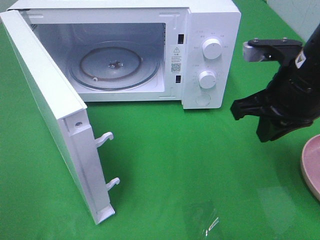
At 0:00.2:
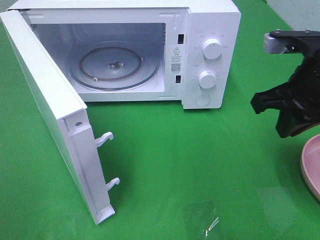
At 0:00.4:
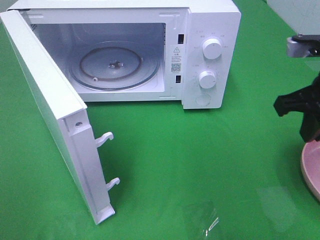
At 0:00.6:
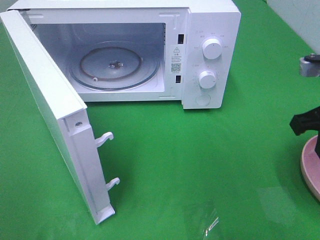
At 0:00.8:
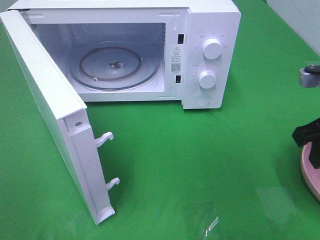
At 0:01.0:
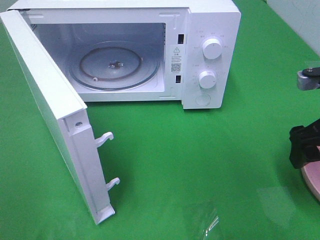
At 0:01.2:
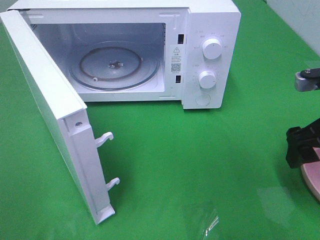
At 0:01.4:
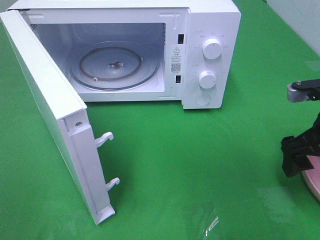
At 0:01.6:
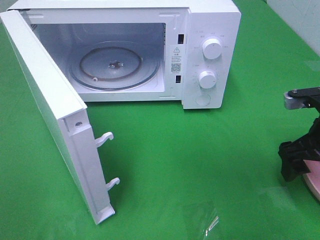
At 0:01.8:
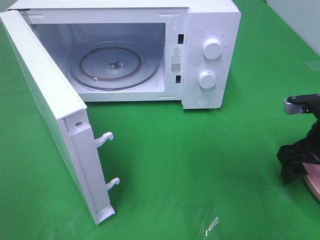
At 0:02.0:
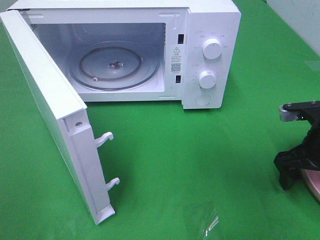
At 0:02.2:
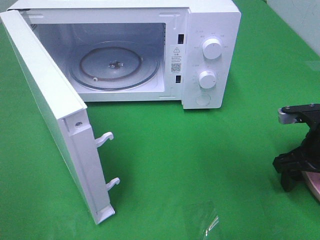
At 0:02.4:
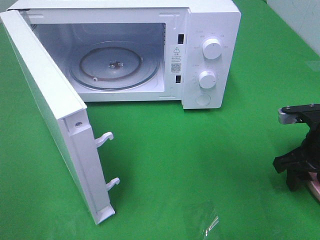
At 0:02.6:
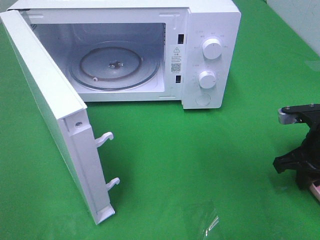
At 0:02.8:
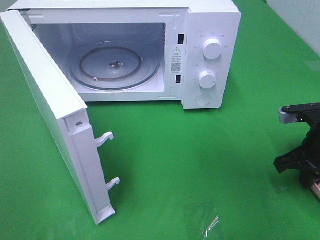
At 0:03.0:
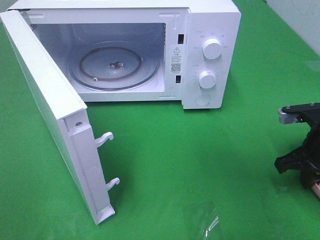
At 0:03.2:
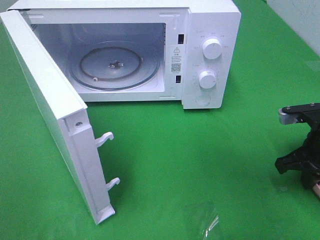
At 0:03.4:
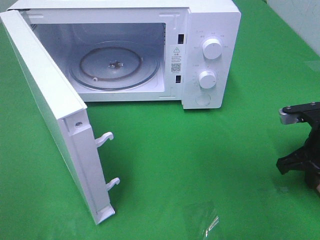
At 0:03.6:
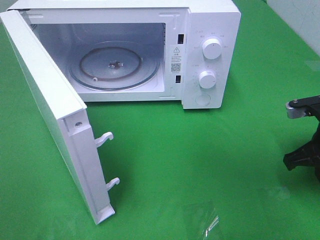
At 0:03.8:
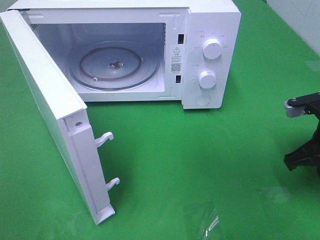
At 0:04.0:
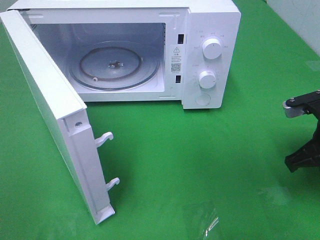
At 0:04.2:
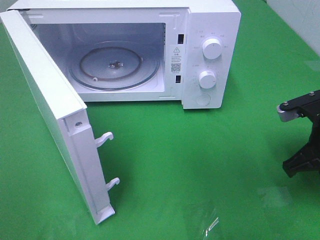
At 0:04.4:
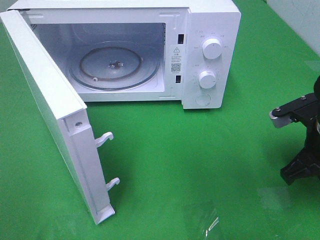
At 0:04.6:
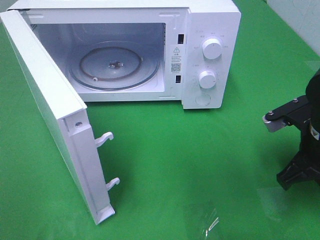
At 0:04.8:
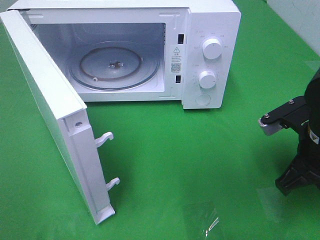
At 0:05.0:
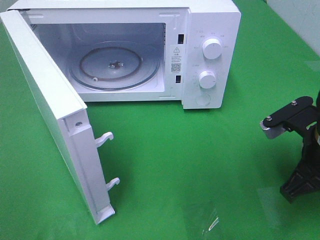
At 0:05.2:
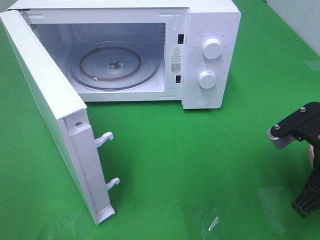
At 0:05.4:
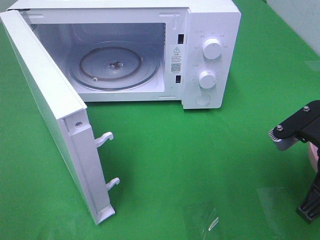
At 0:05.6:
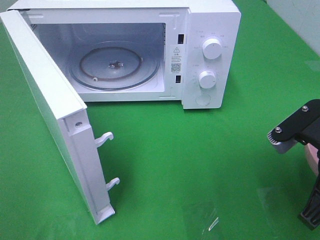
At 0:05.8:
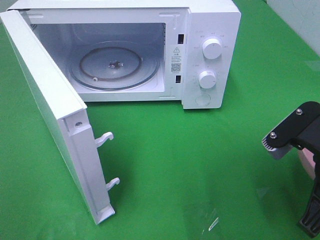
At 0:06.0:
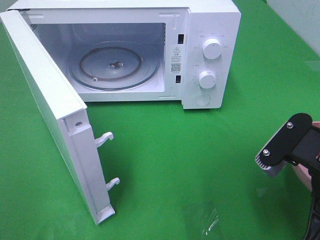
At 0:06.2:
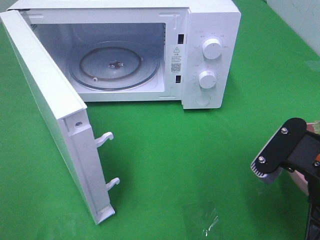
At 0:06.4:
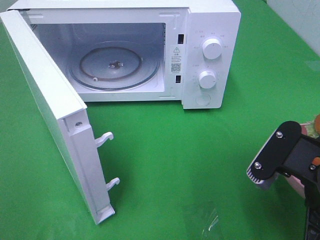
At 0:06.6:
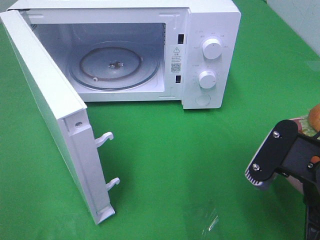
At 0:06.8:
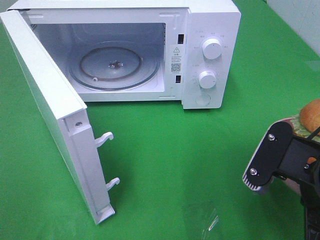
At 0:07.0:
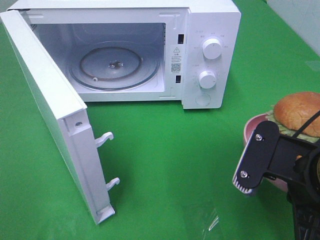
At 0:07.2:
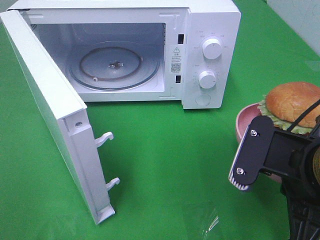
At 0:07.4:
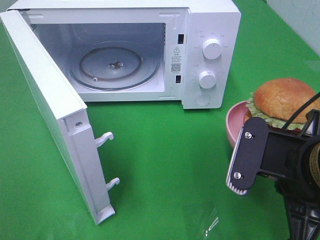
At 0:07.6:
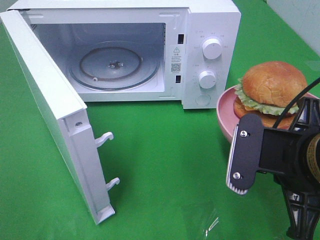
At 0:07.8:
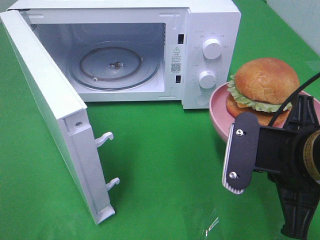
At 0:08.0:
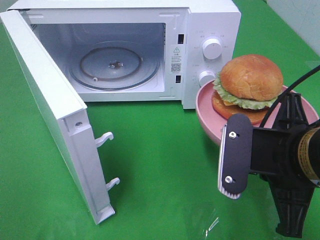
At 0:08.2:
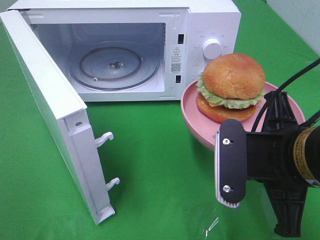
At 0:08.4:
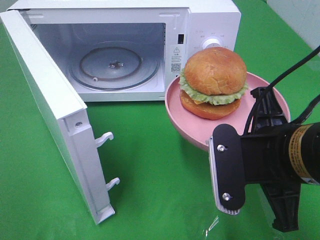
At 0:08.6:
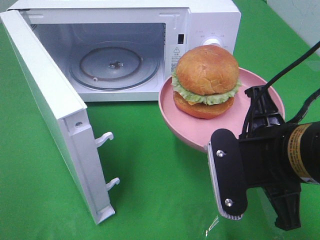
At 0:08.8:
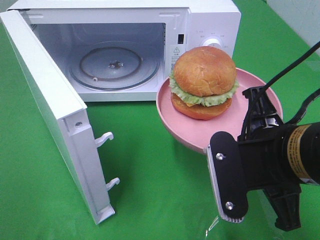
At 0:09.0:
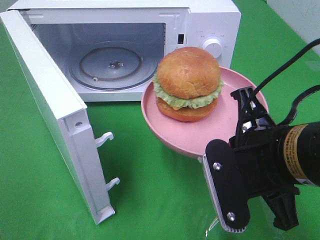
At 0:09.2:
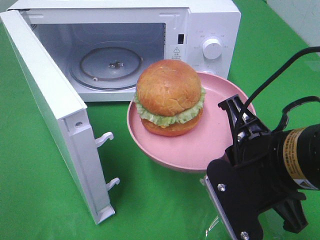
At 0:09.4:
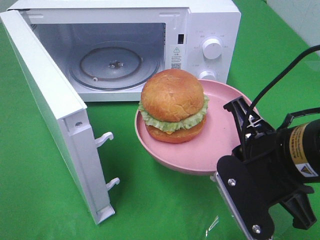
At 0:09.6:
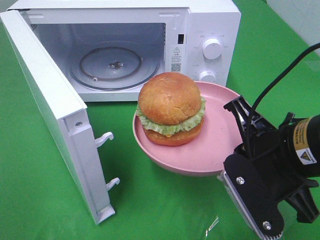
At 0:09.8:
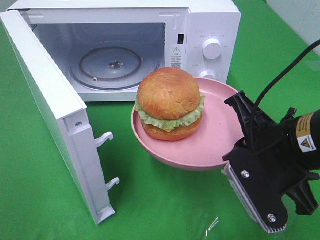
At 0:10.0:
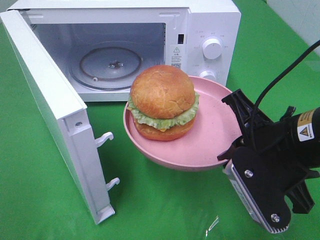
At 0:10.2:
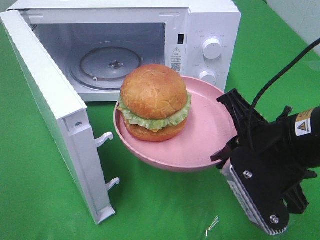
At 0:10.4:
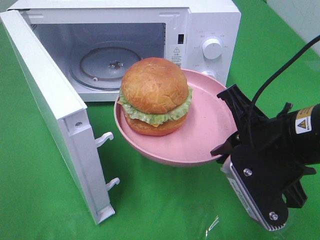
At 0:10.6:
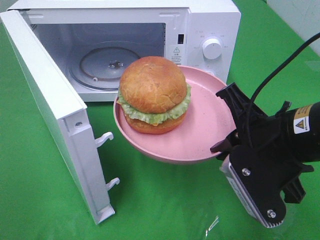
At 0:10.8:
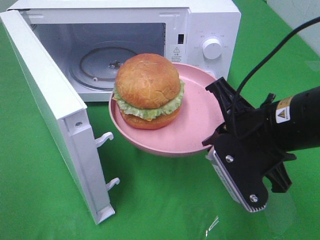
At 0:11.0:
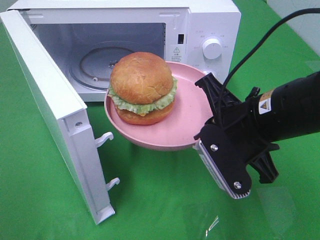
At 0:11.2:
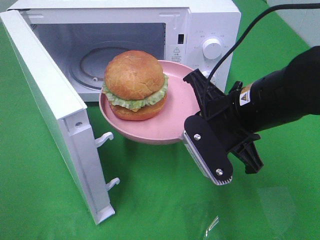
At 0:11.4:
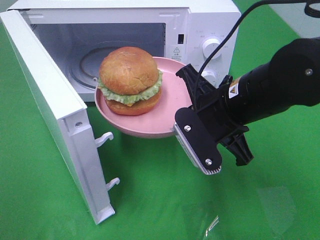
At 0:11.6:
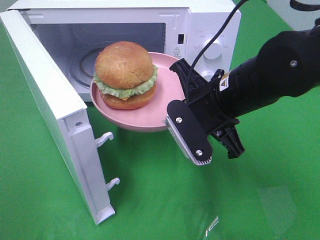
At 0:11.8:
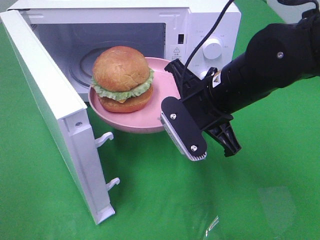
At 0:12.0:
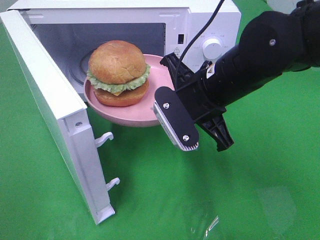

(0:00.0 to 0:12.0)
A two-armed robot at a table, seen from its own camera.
Task of the whole recording: Heat the burger.
Step, 0:00.0 - 0:02.8: Right hand: grab the plate with the hamburger.
0:00.0 - 0:01.6: The right gripper shifts approximately 10 cm to the right and downward, and opens its fingers.
0:01.6 - 0:03.0: The right gripper closes up.
0:03.0 - 0:04.4: The right gripper changes place by some 5 cm.
0:04.4 - 0:06.0: The right gripper goes roughly 10 cm backward and to the left.
0:09.0 - 0:10.4: The grippers move only a little.
0:10.4 - 0:12.0: The right gripper shifts roughly 10 cm forward and to the left.

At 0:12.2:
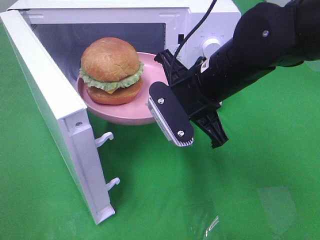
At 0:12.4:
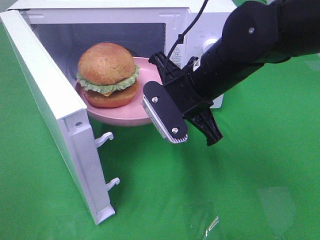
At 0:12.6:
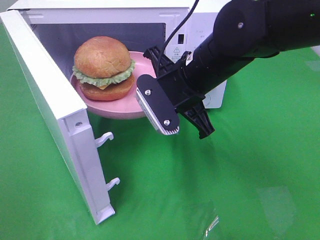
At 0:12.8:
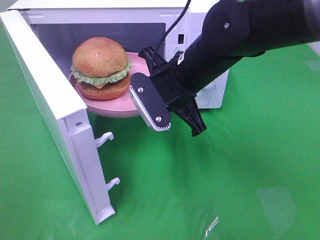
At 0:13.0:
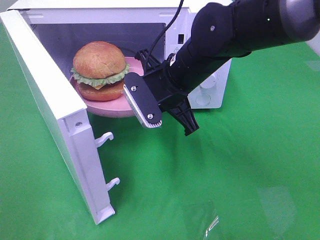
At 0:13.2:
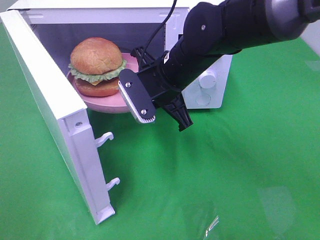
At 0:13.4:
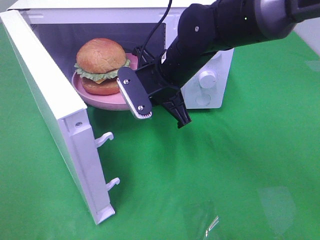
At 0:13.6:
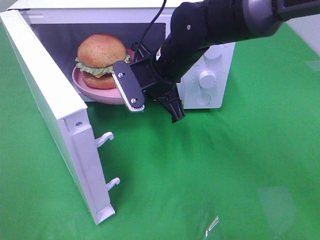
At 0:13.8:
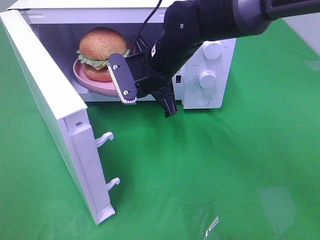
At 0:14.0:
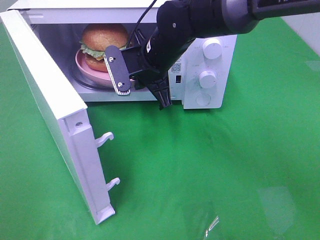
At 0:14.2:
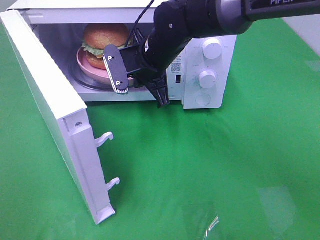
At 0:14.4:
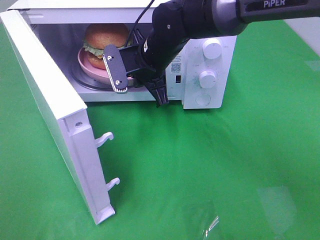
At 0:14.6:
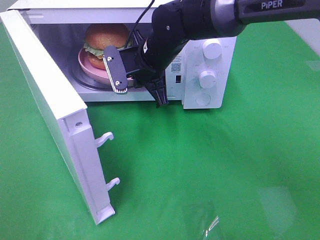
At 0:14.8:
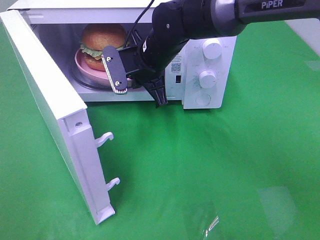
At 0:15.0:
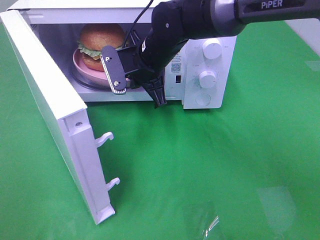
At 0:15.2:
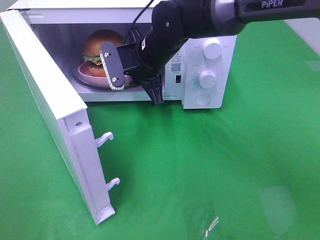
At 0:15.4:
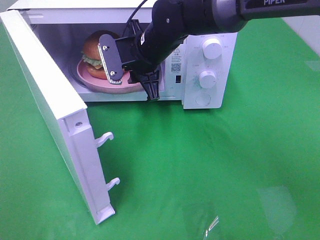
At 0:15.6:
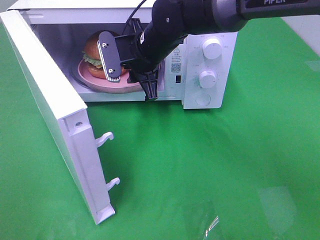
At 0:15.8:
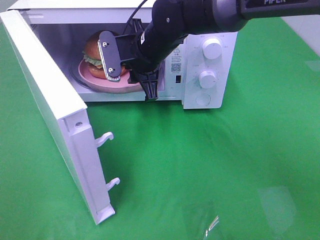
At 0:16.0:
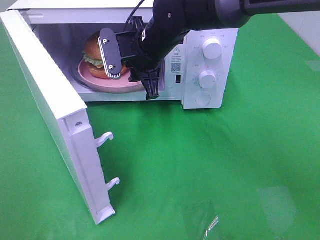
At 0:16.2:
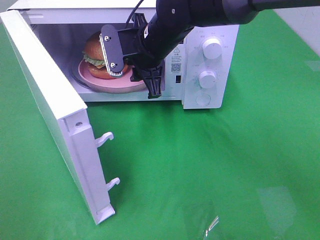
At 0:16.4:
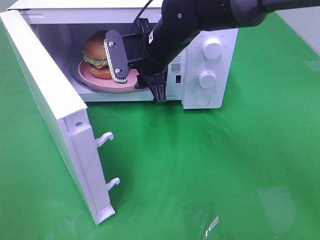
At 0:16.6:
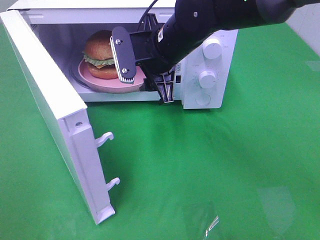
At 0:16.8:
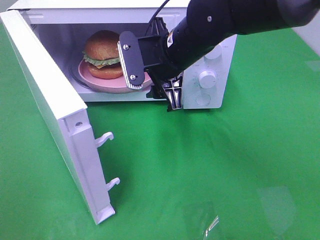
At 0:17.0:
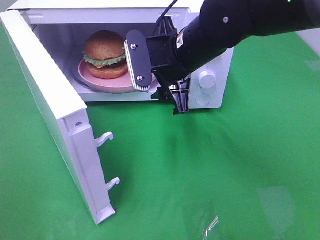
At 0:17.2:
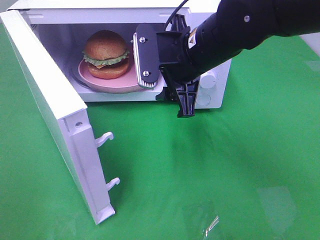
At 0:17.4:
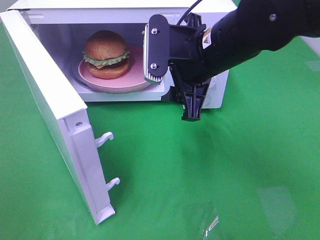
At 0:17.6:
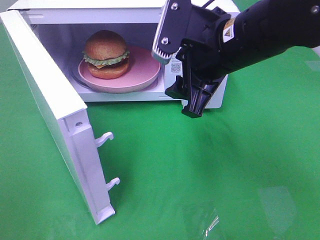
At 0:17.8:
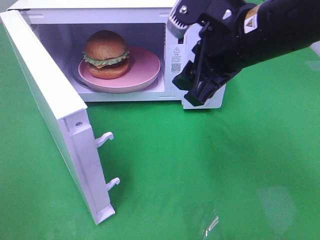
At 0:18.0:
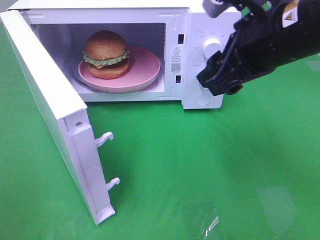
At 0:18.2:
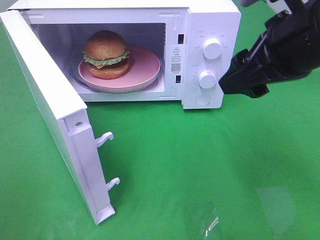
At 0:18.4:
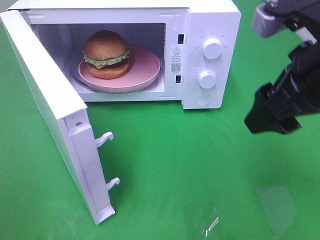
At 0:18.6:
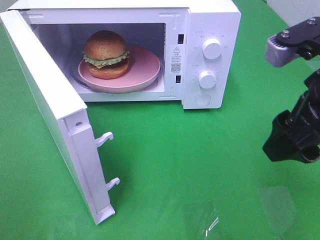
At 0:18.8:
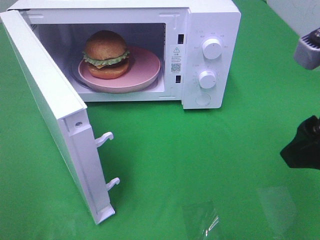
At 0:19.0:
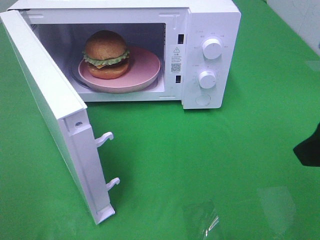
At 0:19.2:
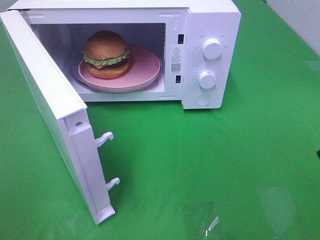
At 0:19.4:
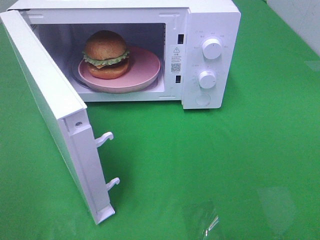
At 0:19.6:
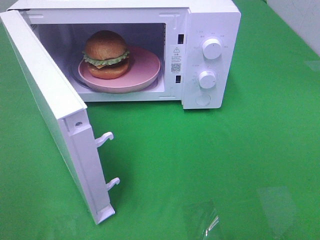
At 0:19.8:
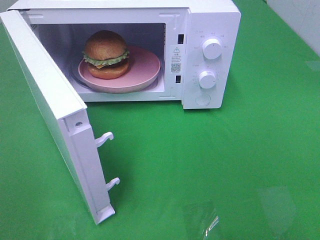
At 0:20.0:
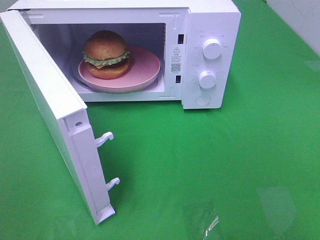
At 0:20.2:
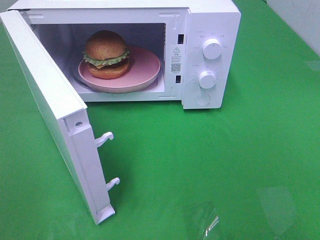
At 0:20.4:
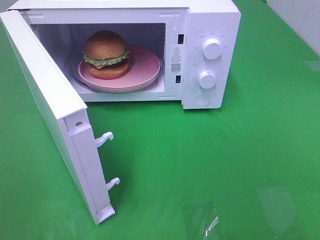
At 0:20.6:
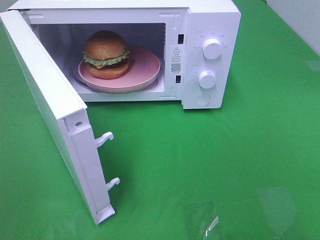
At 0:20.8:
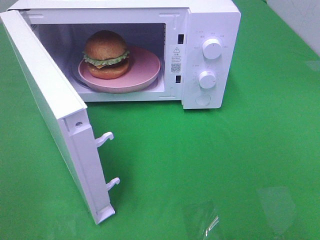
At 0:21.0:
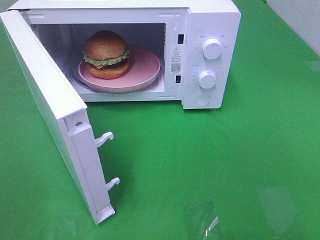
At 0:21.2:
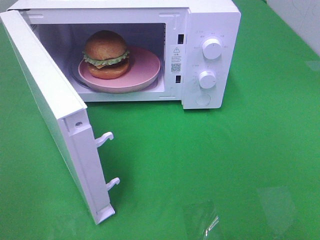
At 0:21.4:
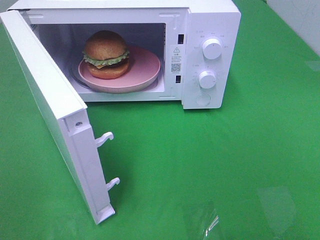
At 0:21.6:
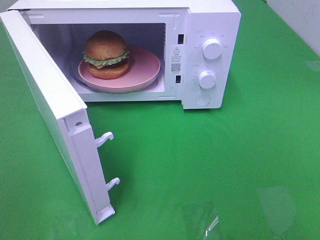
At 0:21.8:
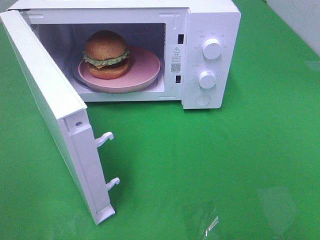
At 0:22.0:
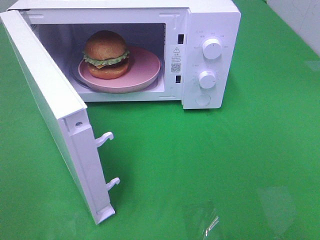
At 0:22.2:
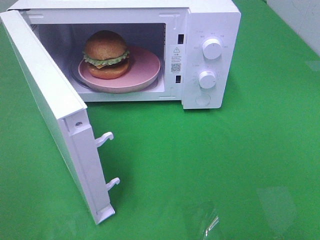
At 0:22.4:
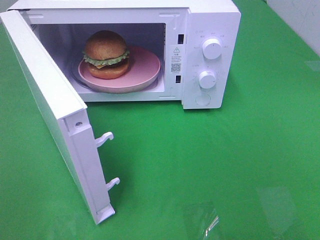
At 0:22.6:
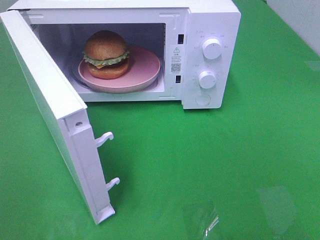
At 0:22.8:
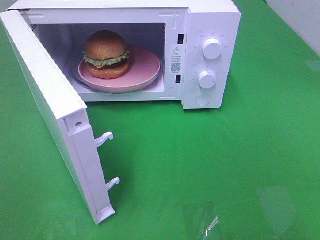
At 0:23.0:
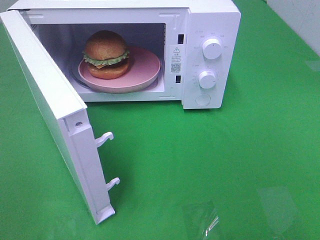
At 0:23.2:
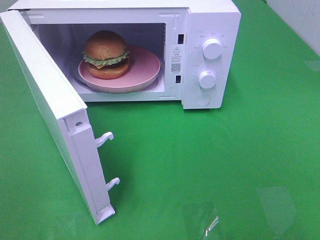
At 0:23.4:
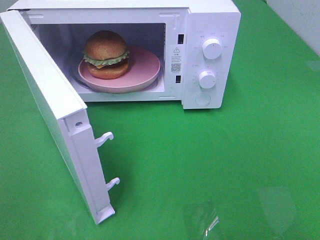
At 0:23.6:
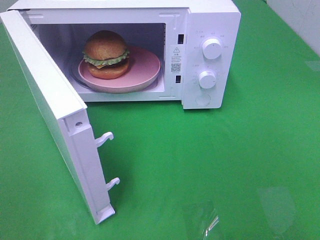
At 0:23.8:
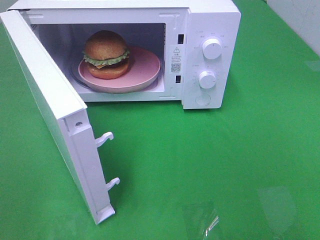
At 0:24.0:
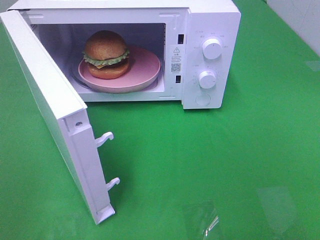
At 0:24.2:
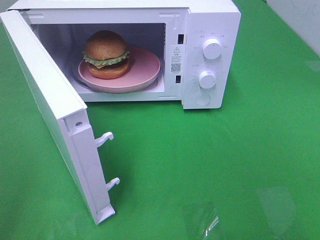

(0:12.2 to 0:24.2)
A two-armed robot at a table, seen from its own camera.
Task of the whole recording: Heat the burger.
Step, 0:12.2 - 0:15.2: Right hand: place the plate in the microwave.
0:12.2 - 0:13.8: The right gripper goes about 10 cm forward and to the left.
0:13.8 - 0:15.2: The grippers move only a little.
0:15.2 - 0:16.6: The right gripper changes place by approximately 5 cm, and opens up.
0:16.6 - 0:18.2: The right gripper moves to the right, backward and upward, roughly 20 cm.
0:18.2 - 0:19.8: The right gripper travels backward and to the right by some 20 cm.
0:21.2 - 0:22.6: Both grippers stay about where they are.
